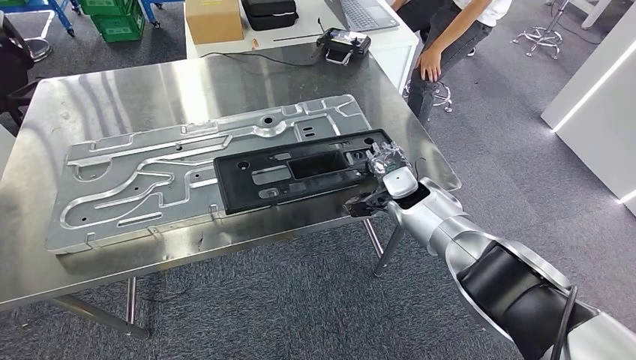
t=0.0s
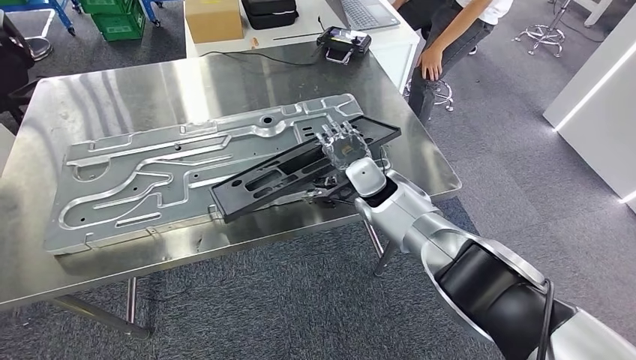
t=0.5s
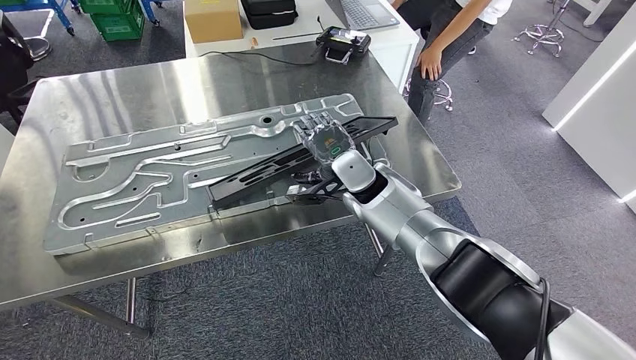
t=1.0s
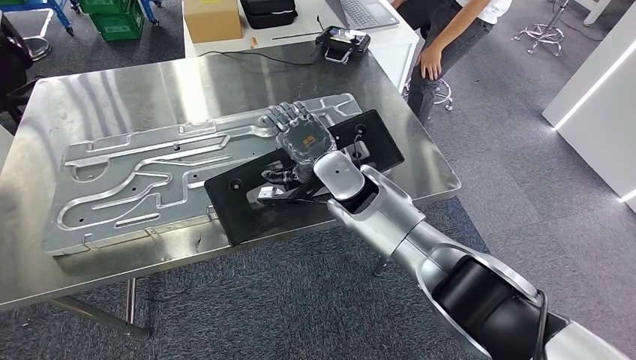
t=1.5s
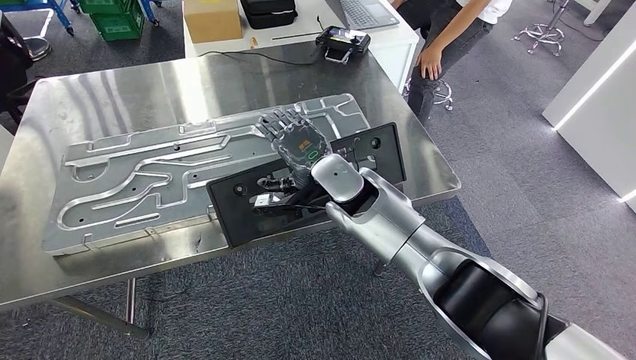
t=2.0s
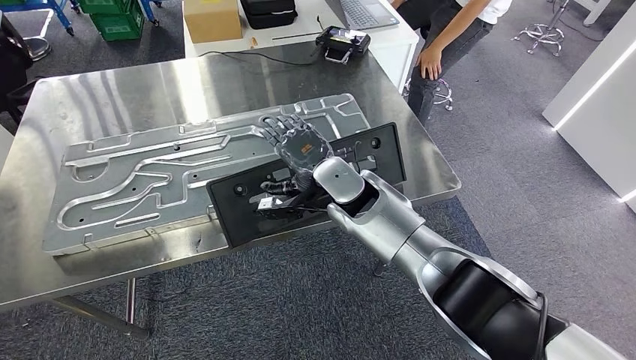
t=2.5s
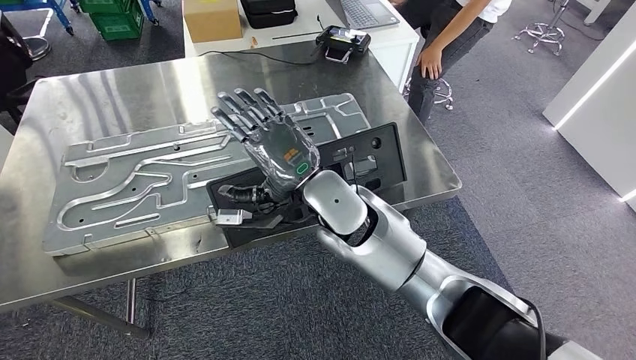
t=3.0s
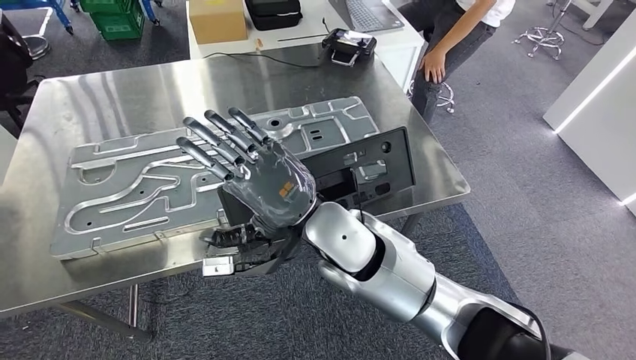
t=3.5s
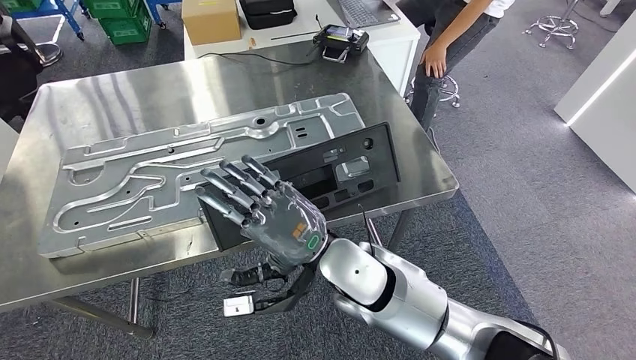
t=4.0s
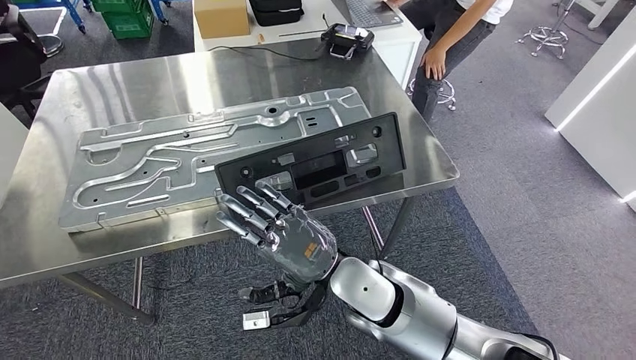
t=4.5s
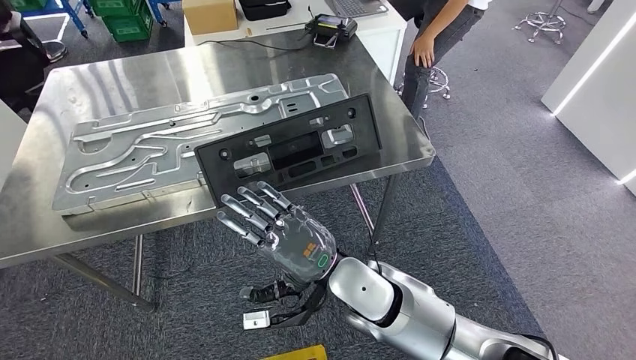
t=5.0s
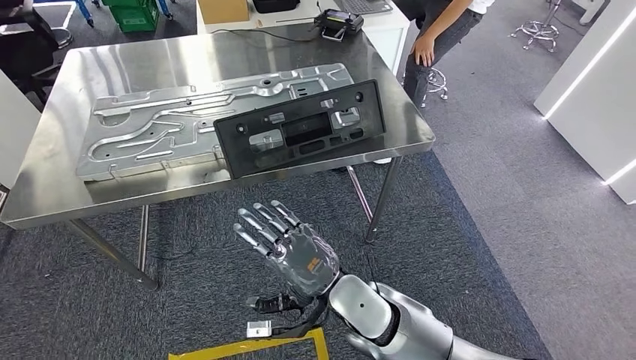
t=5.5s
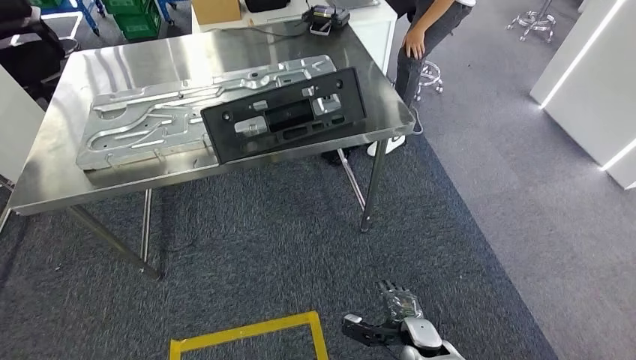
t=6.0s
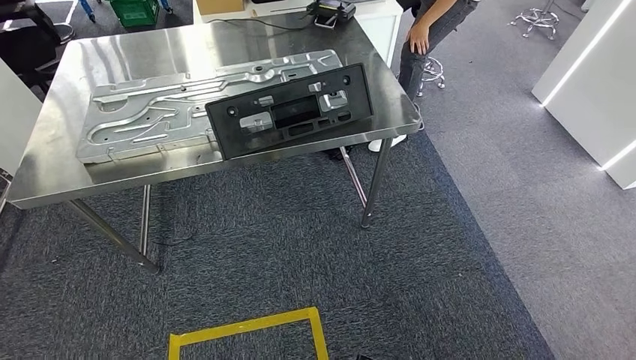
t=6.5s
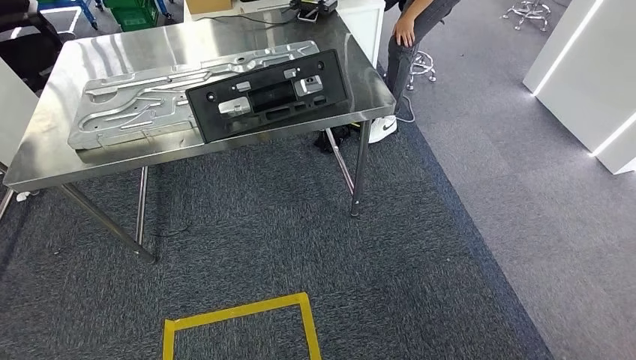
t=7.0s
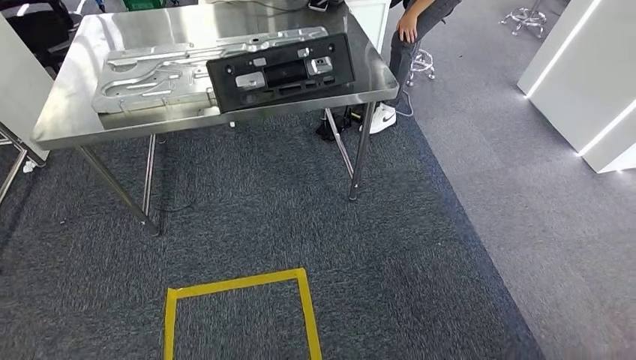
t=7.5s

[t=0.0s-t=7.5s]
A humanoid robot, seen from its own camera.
Step, t=0.0s to t=3.0s: Insert the large material into the corresponding slot on the workbench.
Step, t=3.5s to t=7.5s: Return to the initial position at the shelf.
t=0.0s to t=2.0s: The right hand moves to the left and upward, some 20 cm.

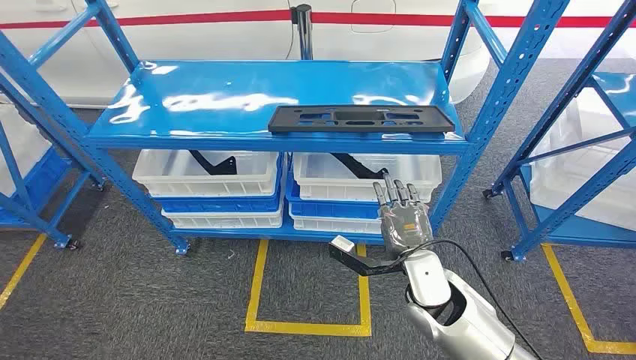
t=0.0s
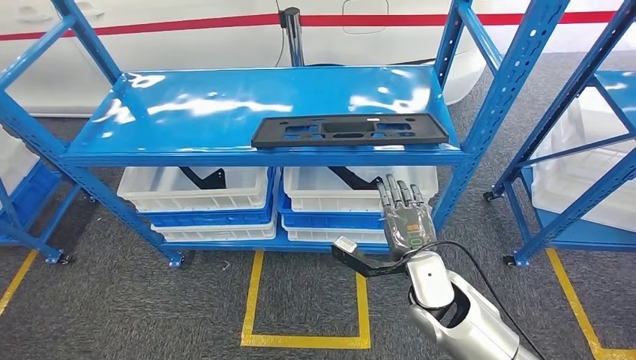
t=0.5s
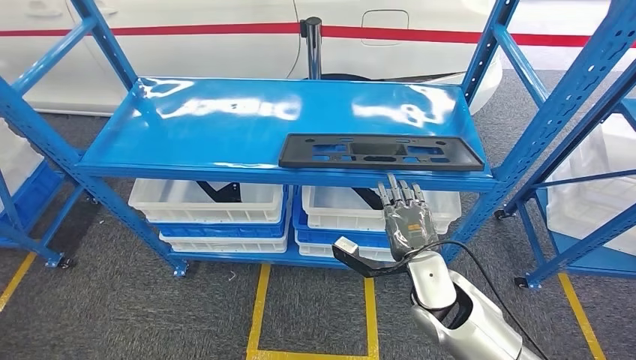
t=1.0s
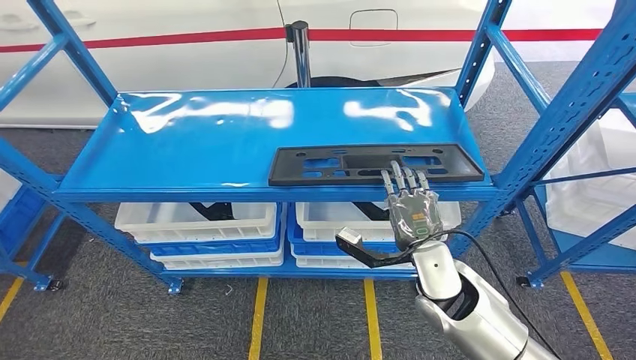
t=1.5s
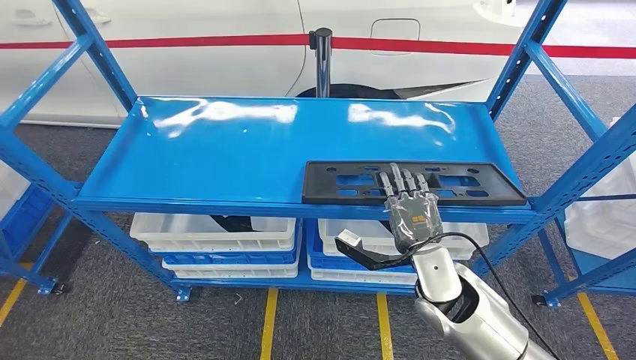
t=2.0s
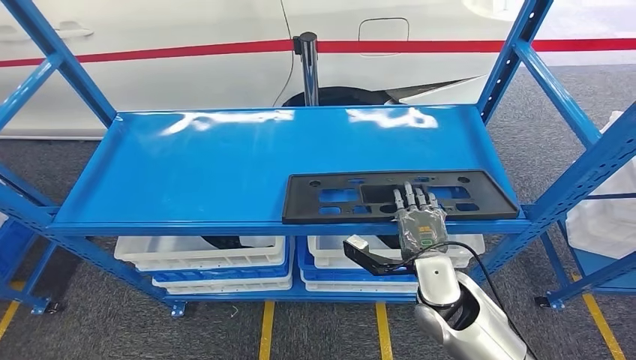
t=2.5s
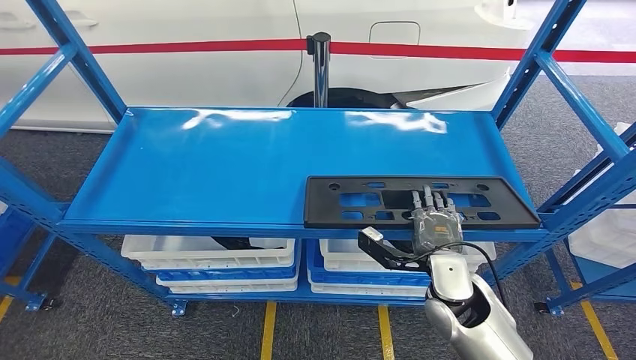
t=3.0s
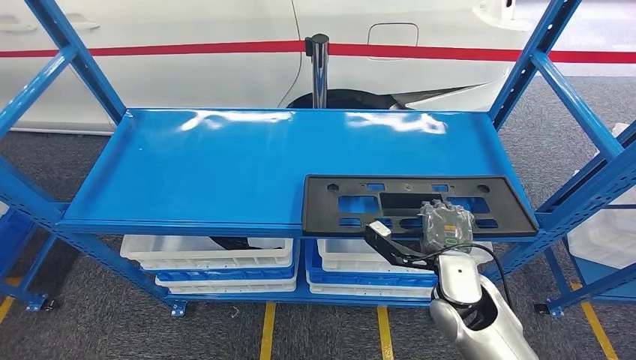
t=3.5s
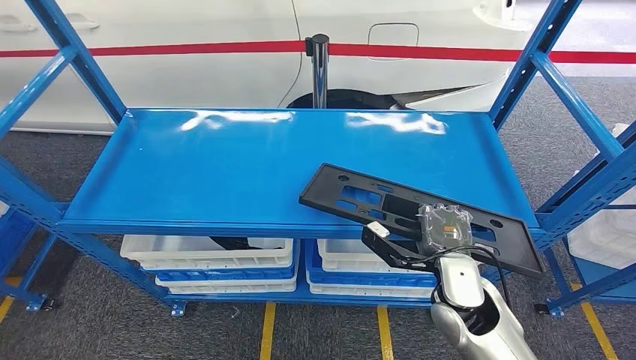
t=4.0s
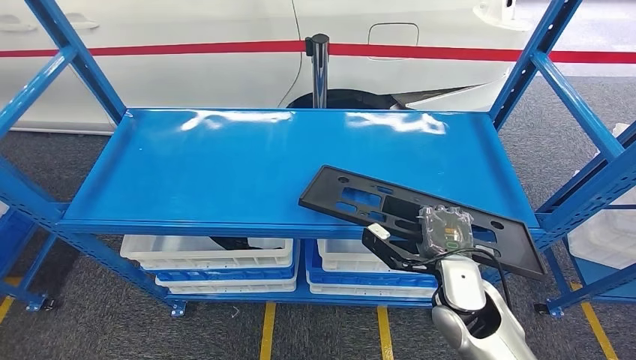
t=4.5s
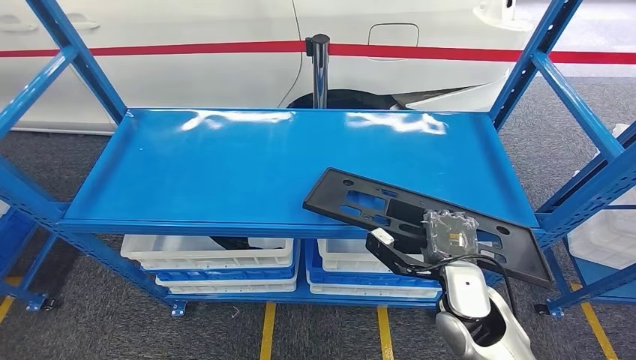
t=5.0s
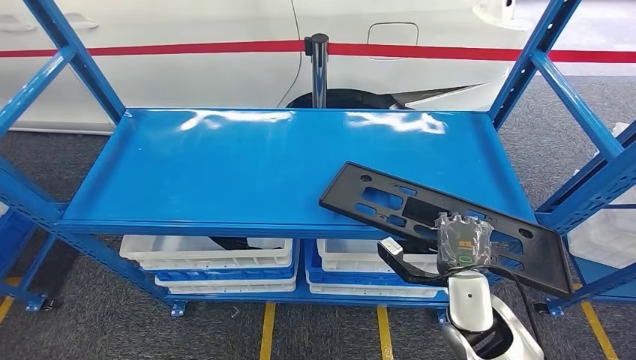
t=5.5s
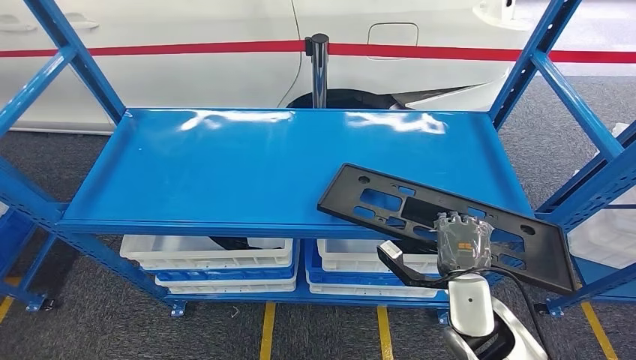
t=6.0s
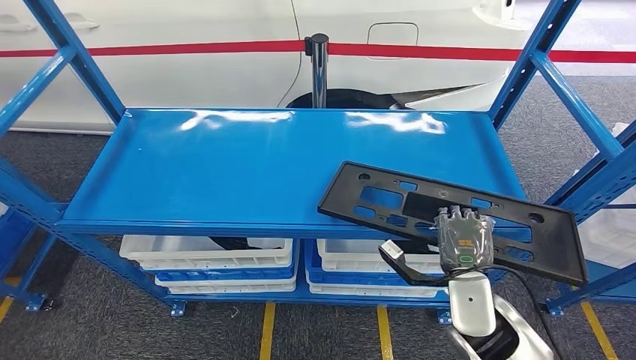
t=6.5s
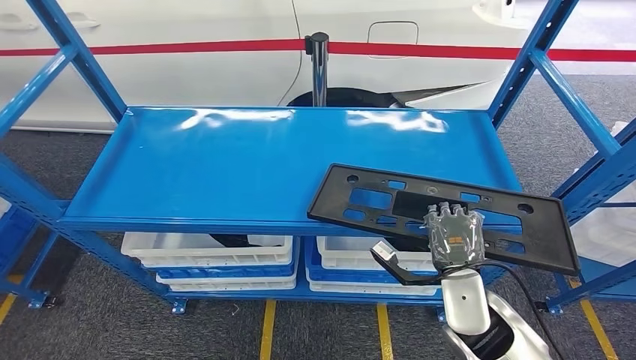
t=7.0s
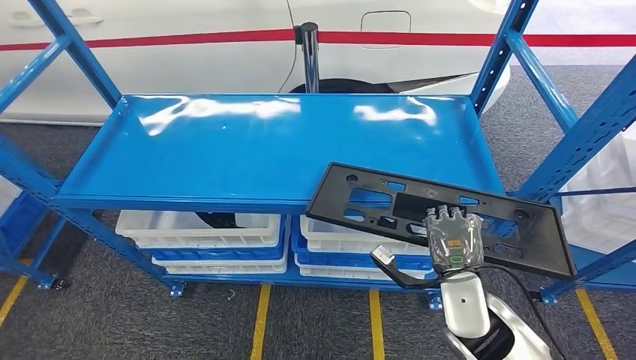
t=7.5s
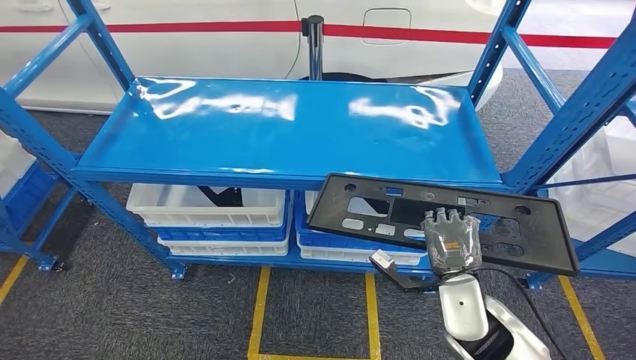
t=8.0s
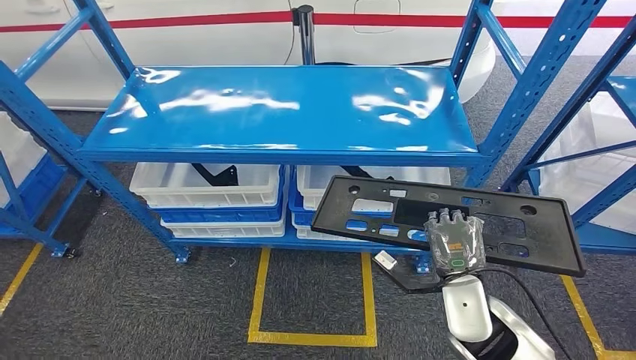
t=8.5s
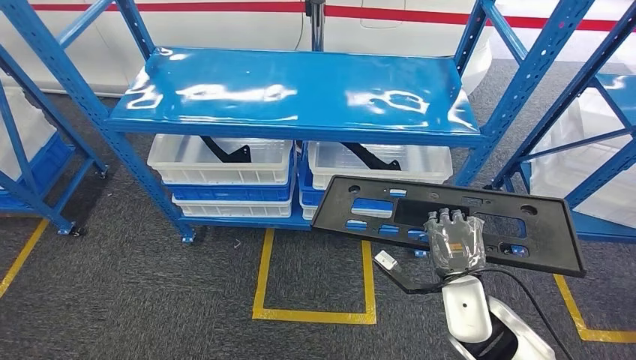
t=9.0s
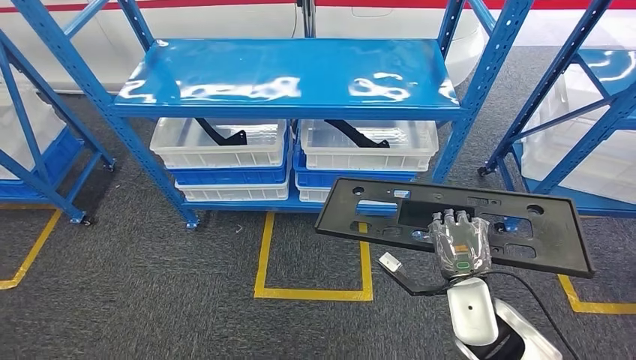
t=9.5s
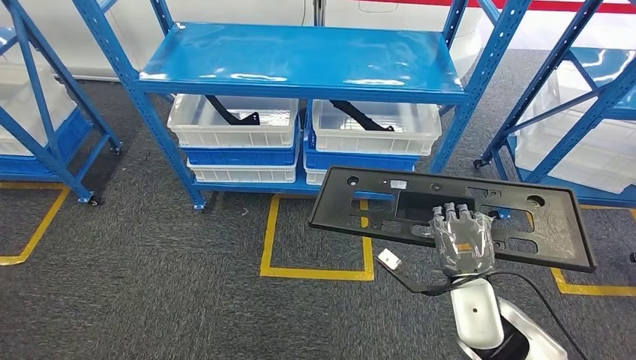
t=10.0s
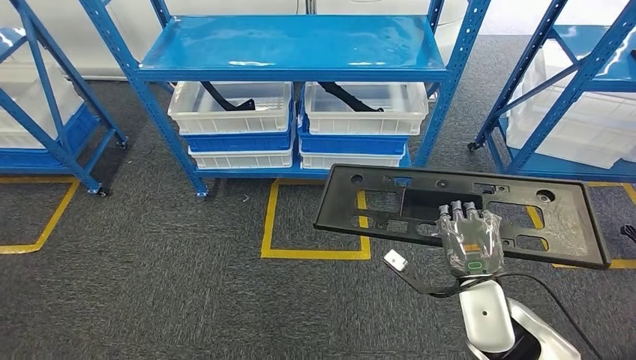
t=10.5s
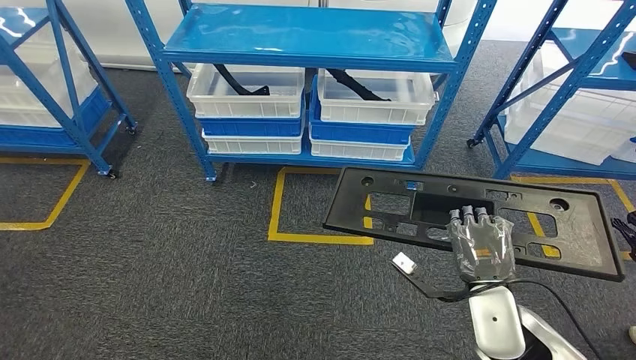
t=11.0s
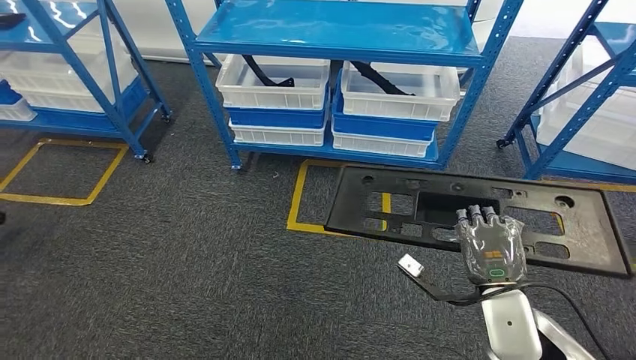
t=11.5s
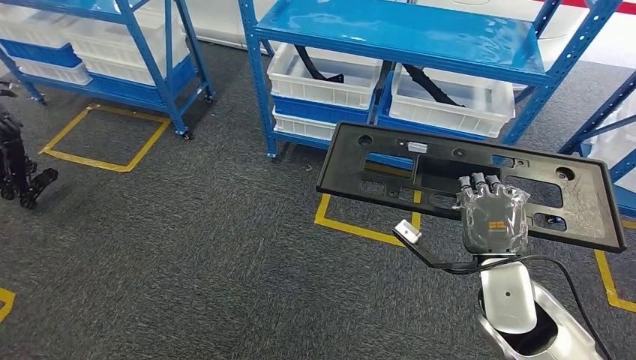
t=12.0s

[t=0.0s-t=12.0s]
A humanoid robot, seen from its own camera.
Step, t=0.0s to t=8.5s: Pick up the large material from the shelf.
t=4.0s to t=6.0s: The hands stay close to where they were, moving slightly.
